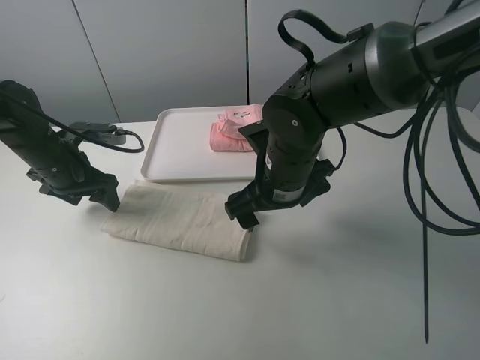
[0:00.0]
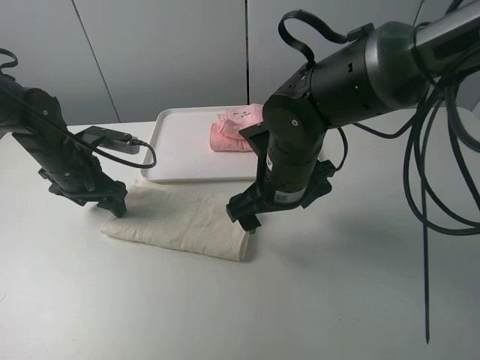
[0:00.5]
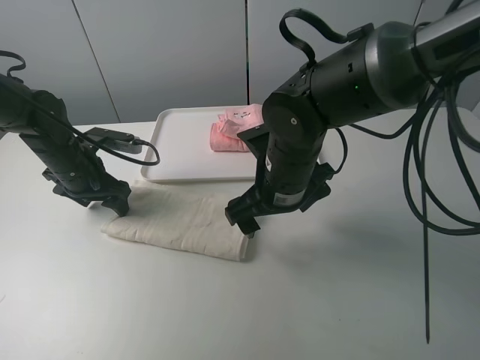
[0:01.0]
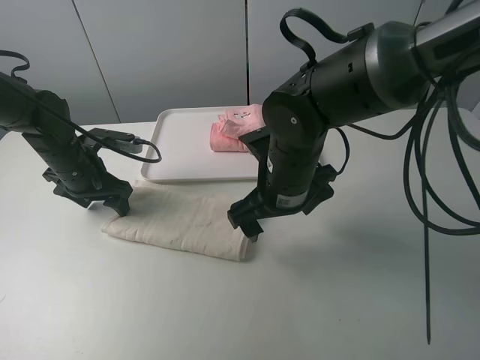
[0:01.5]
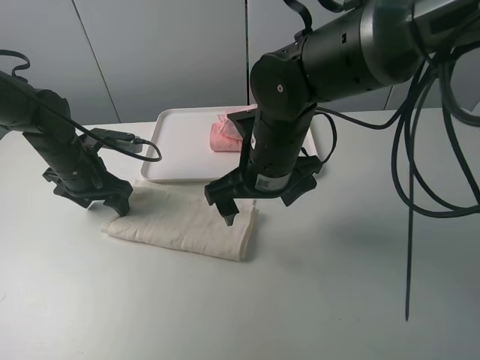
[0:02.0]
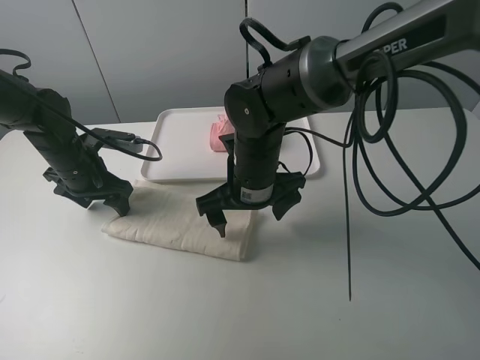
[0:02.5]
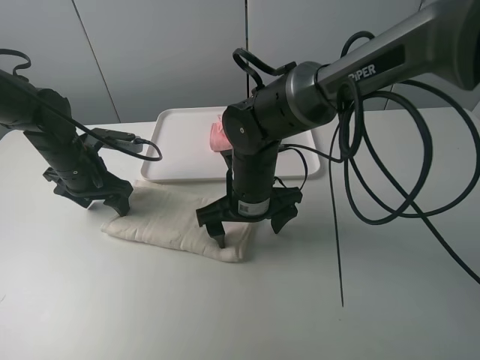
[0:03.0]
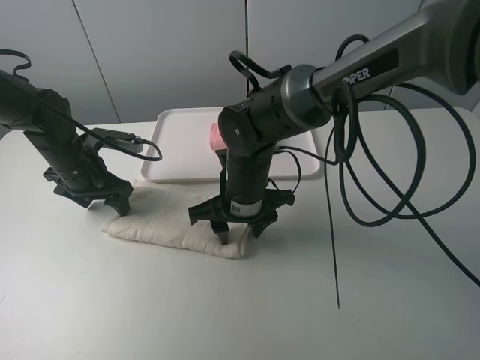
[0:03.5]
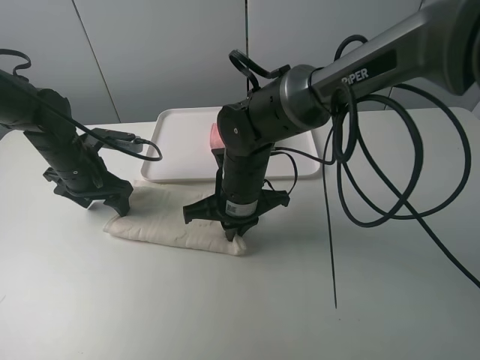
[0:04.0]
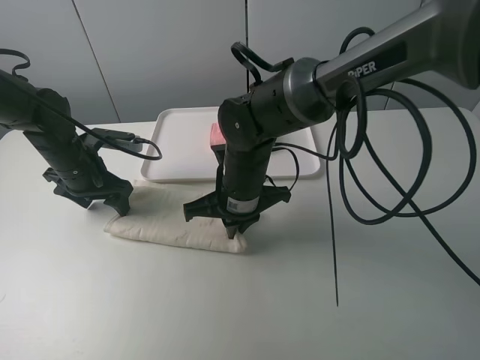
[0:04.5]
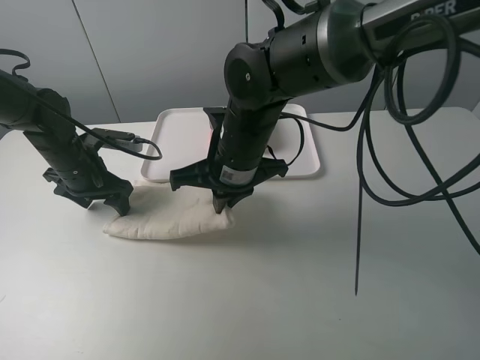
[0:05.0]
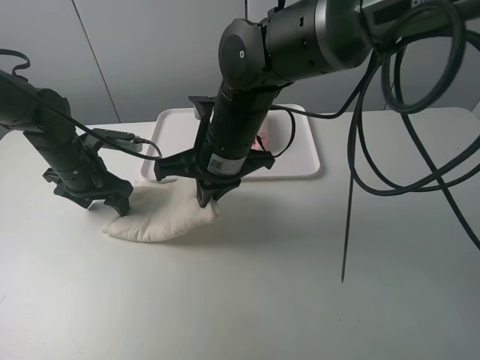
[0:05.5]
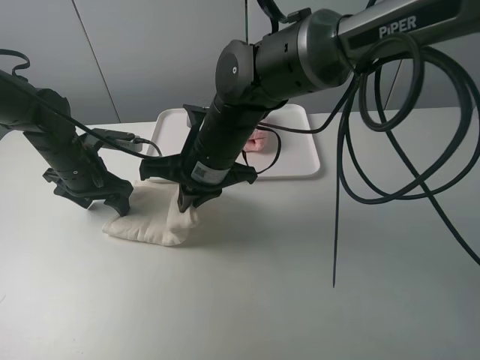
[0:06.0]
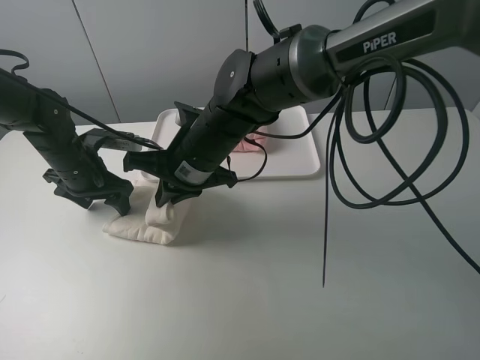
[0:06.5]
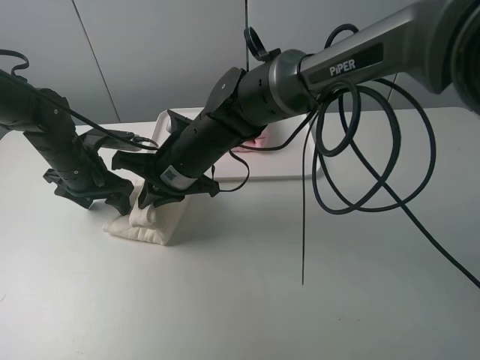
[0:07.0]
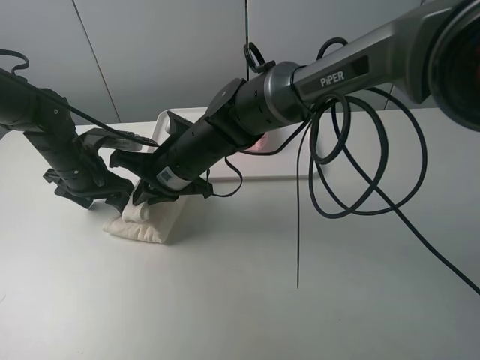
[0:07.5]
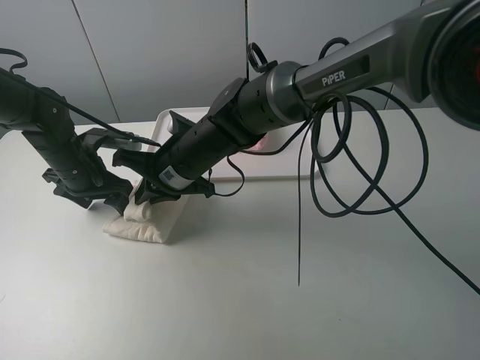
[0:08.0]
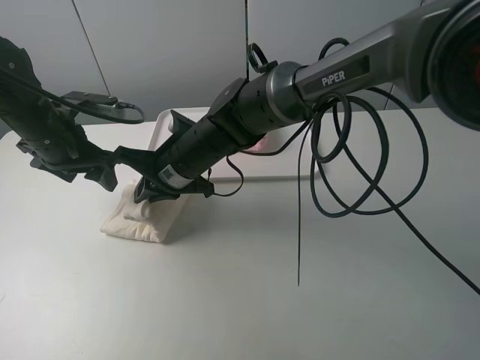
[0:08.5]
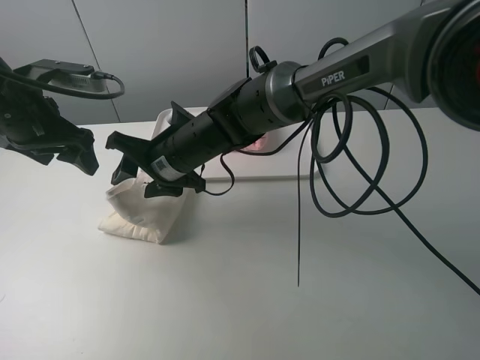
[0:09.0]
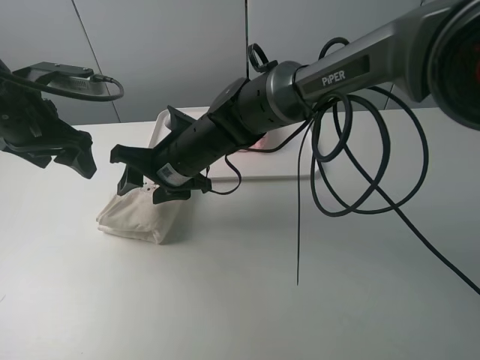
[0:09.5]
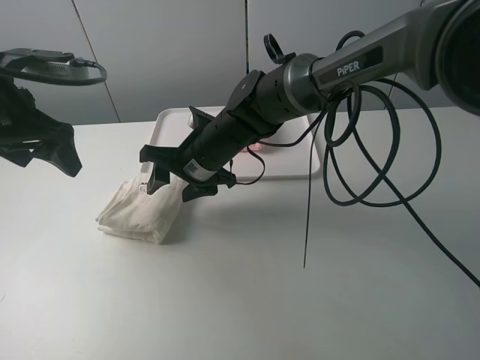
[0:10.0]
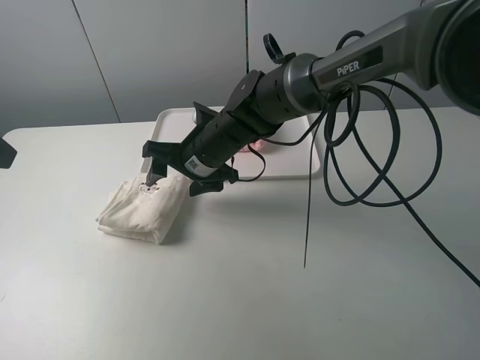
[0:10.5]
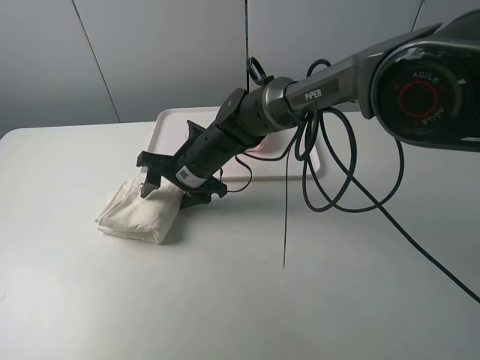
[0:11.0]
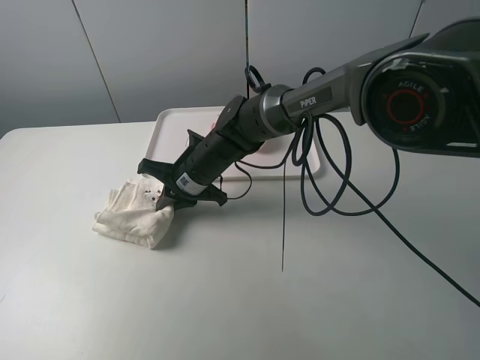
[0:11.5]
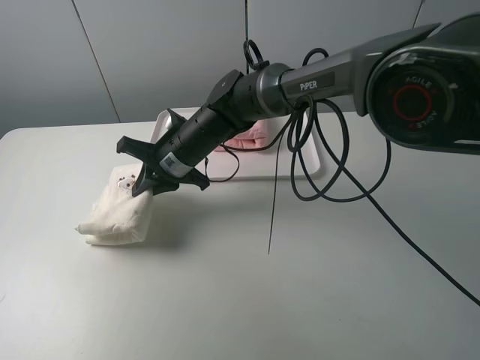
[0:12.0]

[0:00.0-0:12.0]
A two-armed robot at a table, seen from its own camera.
Task of the whole recording: fold one of the towels by two grippers and place it on the tray,then fold another towel by two grippers and place it on the folded towel.
Step, 0:01.5 to 0:04.0: Grasp the white towel with the right gripper.
Step, 0:04.5 to 0:09.0: Fold the white towel from right to left with right gripper.
Step, 0:09.5 to 0:11.5: Grasp the white towel with the right gripper.
0:02.0 to 0:04.0: The right gripper goes about 5 cm downward, and closes up.
0:04.0 to 0:06.0: The right gripper shifts roughly 5 cm upward.
0:06.0 to 0:08.0: The right gripper moves some 5 cm.
0:08.0 to 0:10.0: The left gripper shifts about 20 cm upward and backward. The right gripper opens.
0:10.0 to 0:12.0: The left gripper travels backward and upward by some 15 cm. The right gripper closes its fingers.

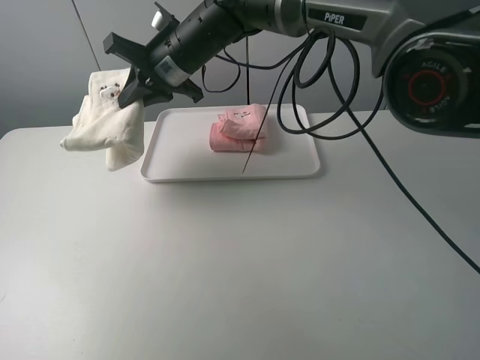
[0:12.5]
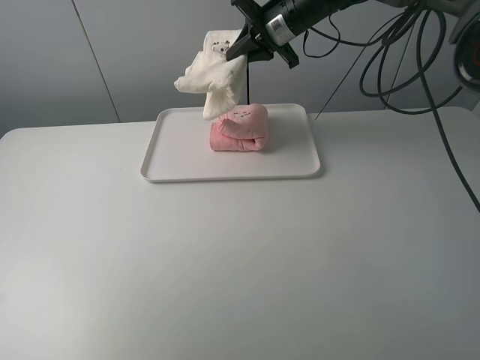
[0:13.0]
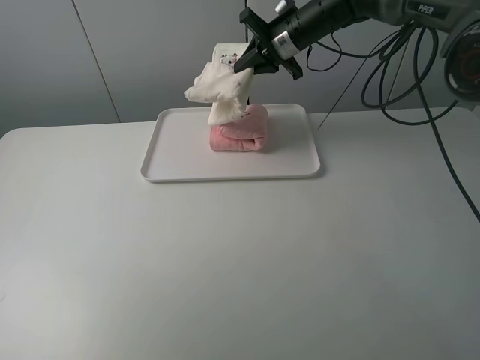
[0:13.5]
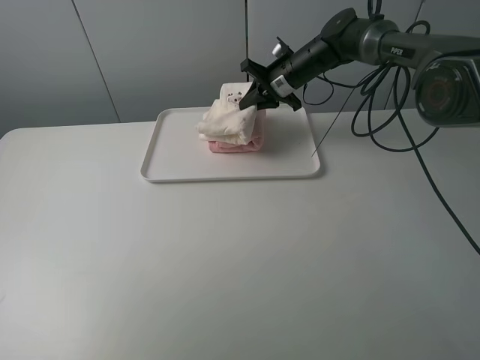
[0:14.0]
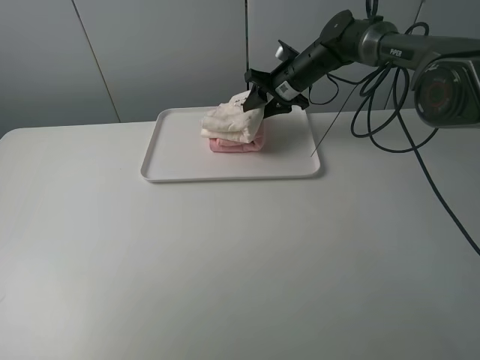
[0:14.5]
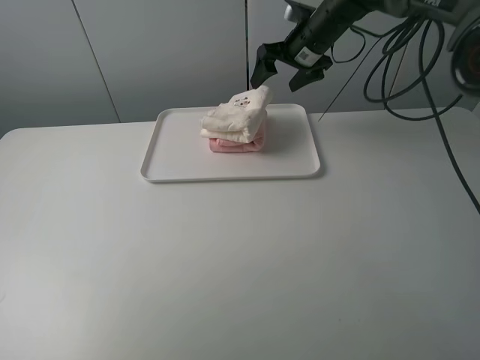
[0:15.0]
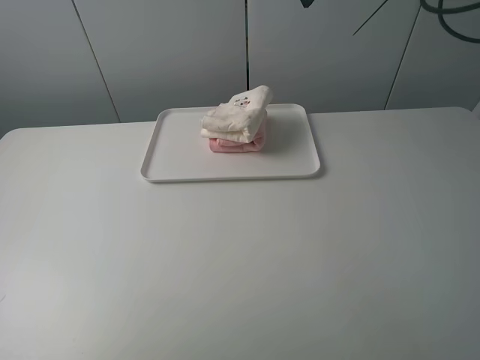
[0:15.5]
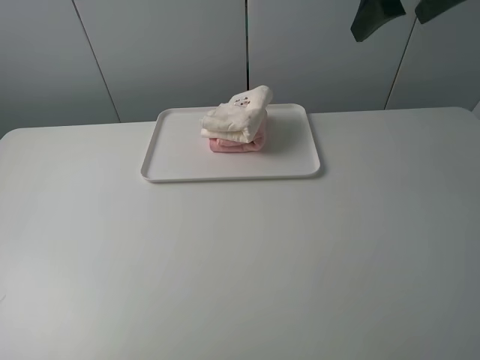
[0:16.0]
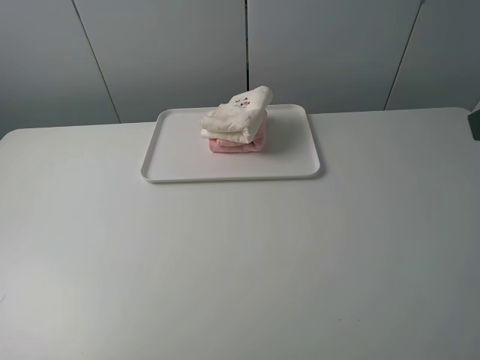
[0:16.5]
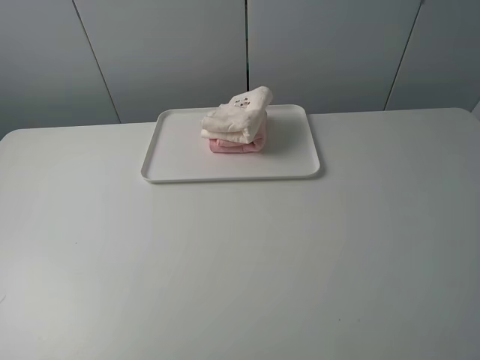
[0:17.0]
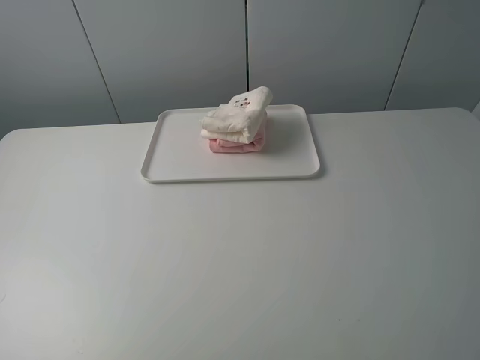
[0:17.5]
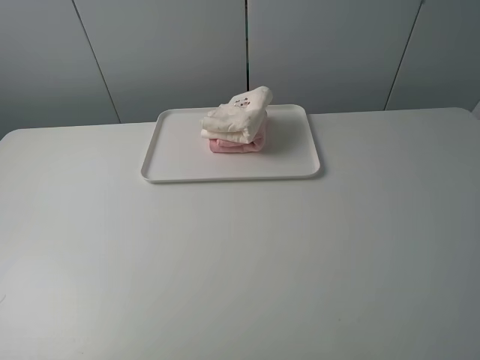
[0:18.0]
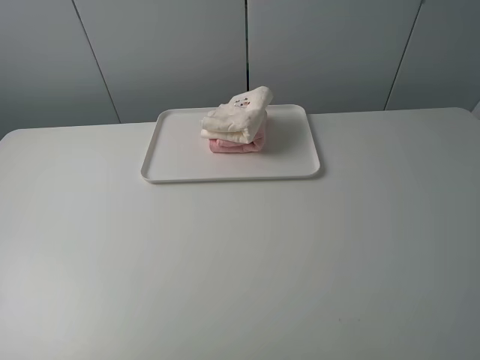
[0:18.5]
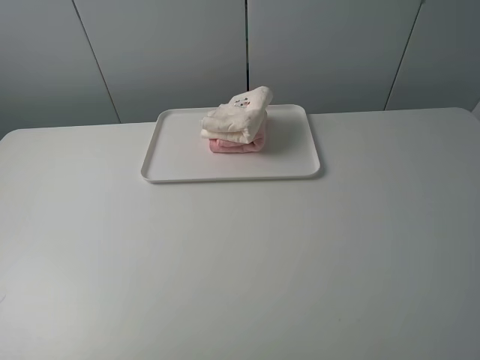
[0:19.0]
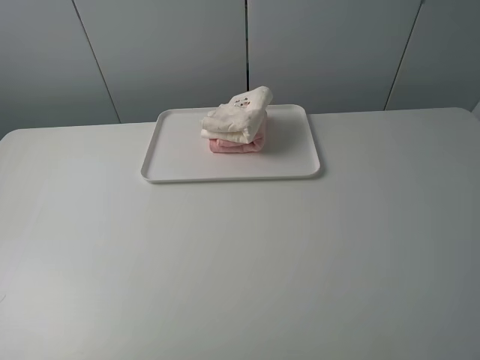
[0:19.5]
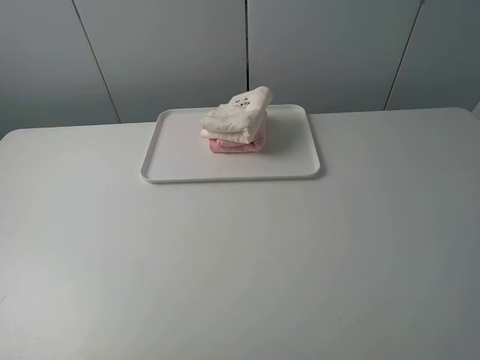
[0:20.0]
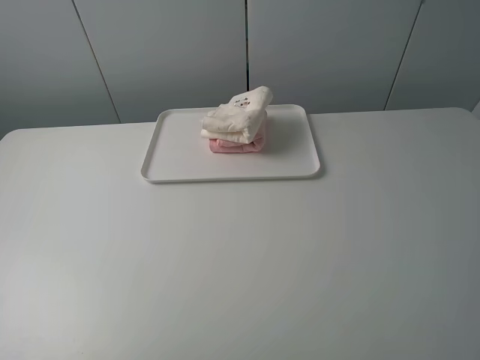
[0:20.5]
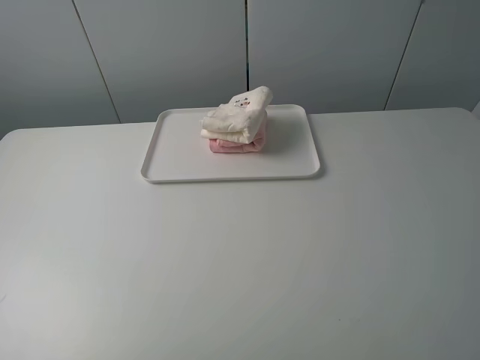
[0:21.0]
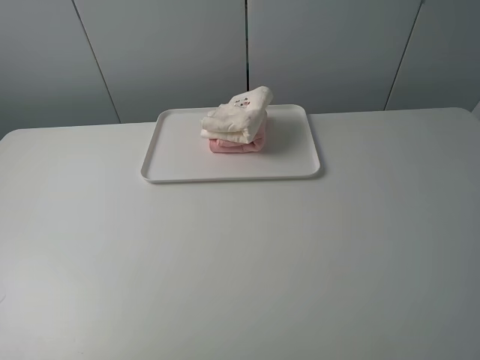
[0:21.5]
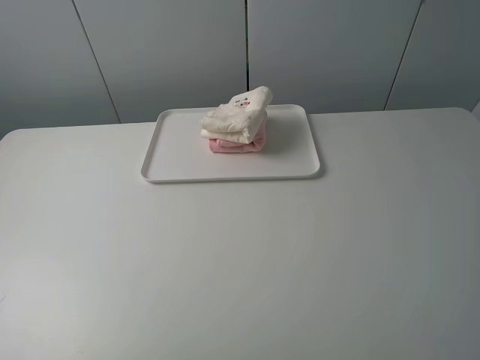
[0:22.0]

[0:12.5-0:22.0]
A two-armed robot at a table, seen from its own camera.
Task of the whole recording: fold one of the towels by two grippers and place it on the tray,then fold another towel by two grippers and place it on the folded towel.
Step, 0:12.5 to 0:14.5: Place the white towel on the pink towel with the right gripper.
0:12.5 to 0:14.5: The right gripper shifts approximately 25 cm to the right, forward and downward, and opens up.
0:14.5 to 0:16.5: The left gripper moves backward, approximately 15 cm, while the right gripper heads backward and upward, covering roughly 50 cm.
0:20.0 to 0:22.0: Neither gripper changes place.
